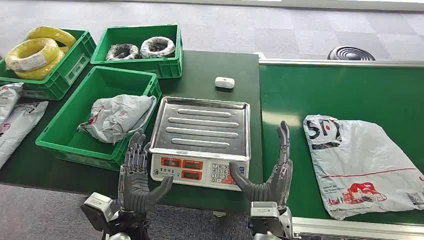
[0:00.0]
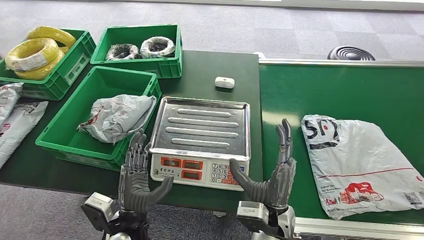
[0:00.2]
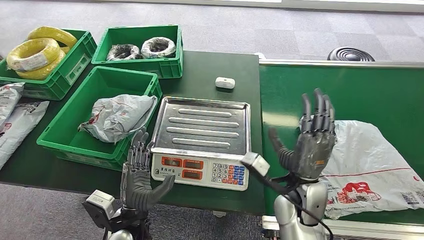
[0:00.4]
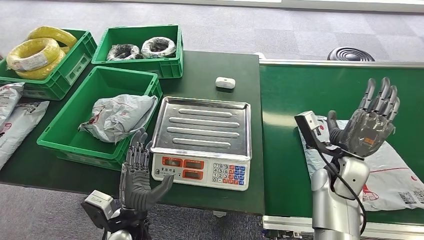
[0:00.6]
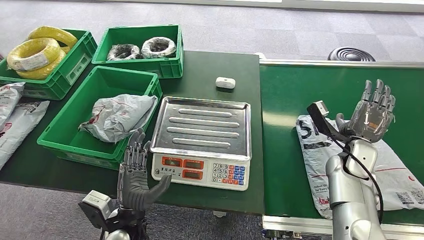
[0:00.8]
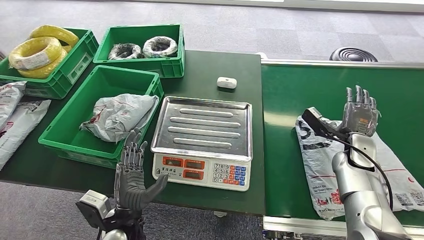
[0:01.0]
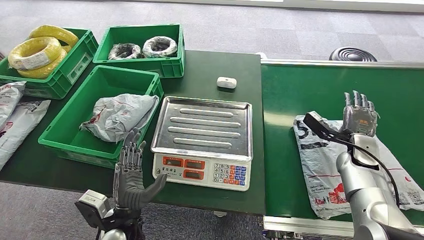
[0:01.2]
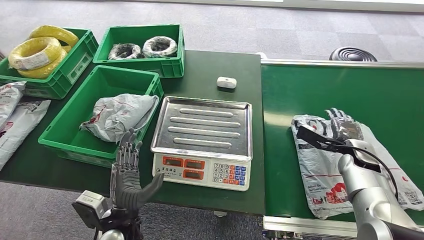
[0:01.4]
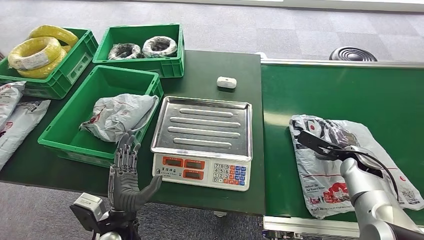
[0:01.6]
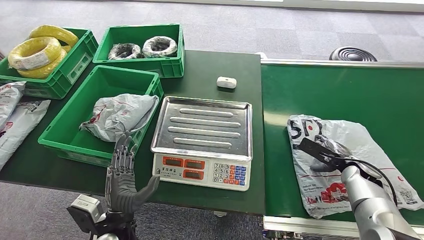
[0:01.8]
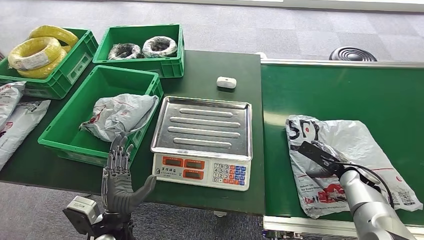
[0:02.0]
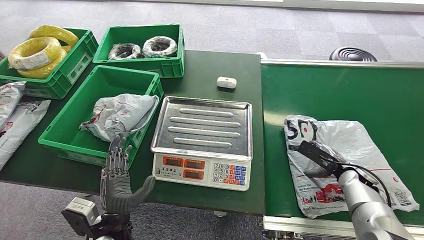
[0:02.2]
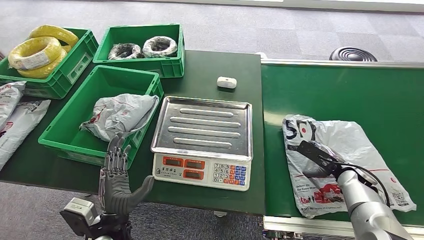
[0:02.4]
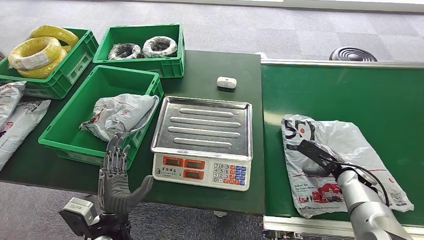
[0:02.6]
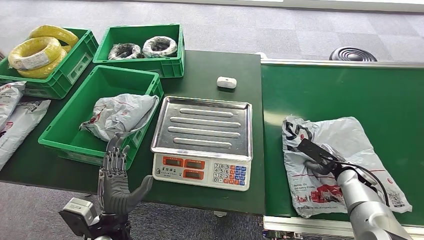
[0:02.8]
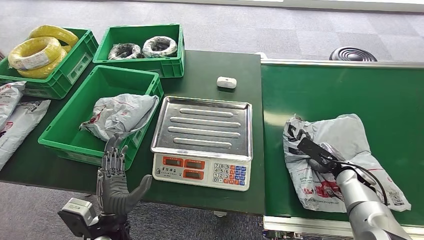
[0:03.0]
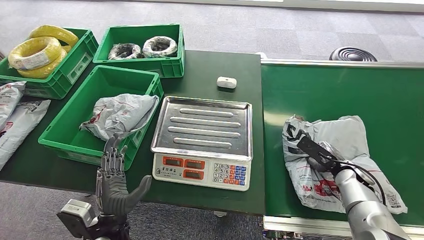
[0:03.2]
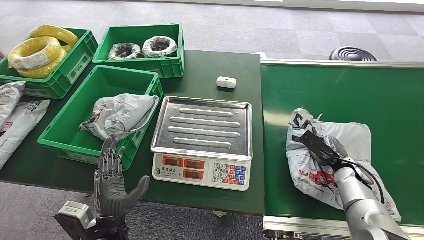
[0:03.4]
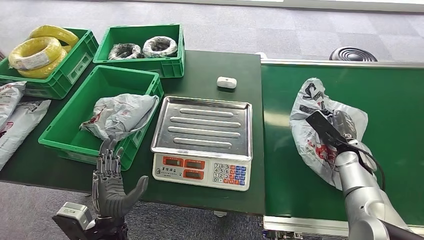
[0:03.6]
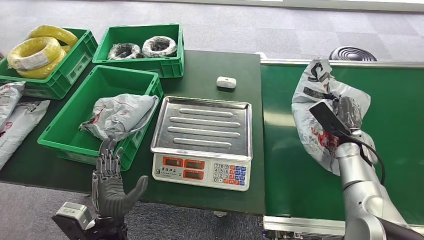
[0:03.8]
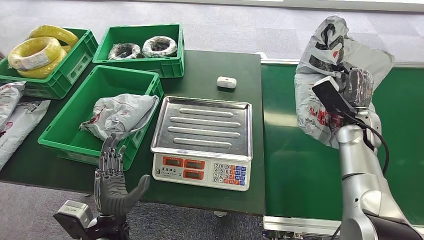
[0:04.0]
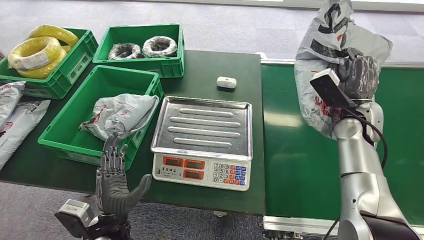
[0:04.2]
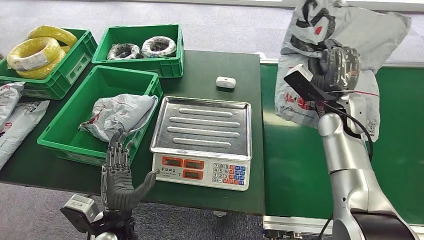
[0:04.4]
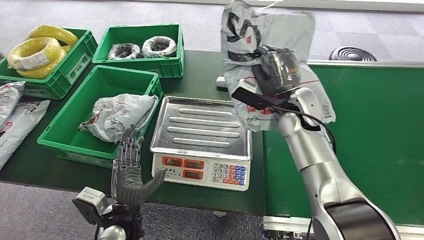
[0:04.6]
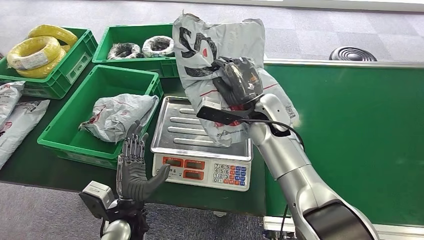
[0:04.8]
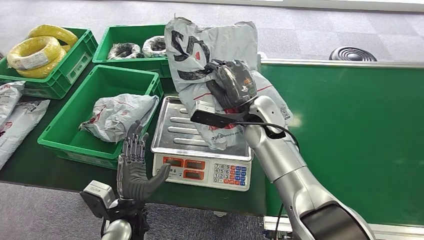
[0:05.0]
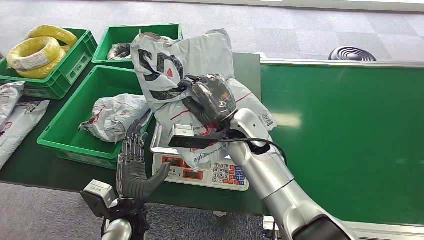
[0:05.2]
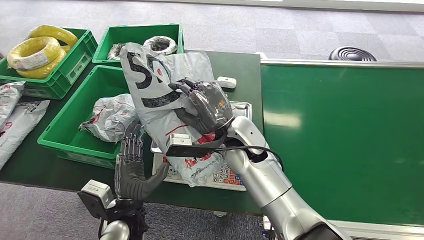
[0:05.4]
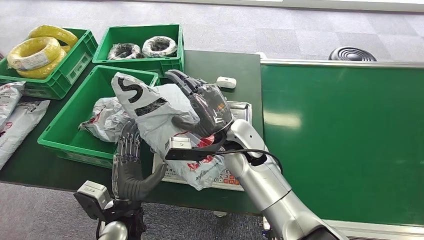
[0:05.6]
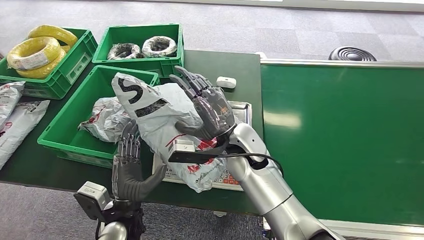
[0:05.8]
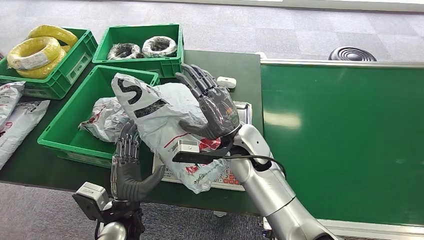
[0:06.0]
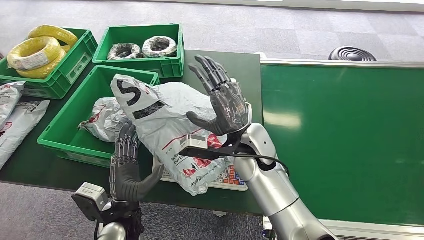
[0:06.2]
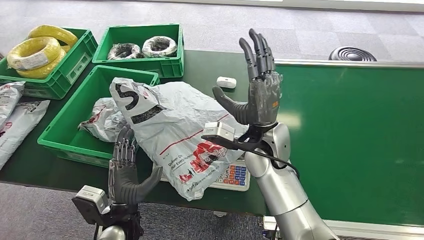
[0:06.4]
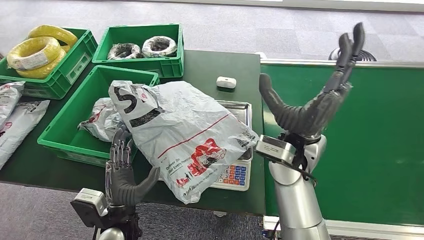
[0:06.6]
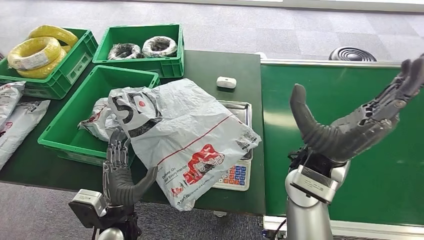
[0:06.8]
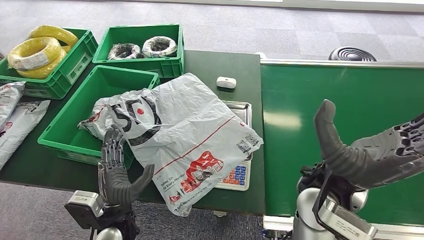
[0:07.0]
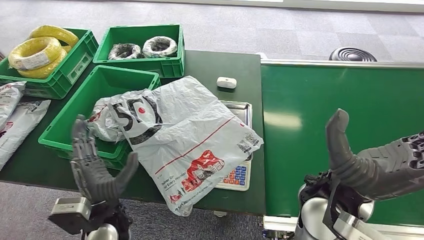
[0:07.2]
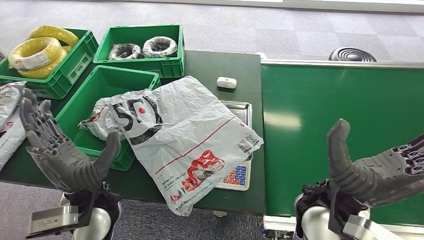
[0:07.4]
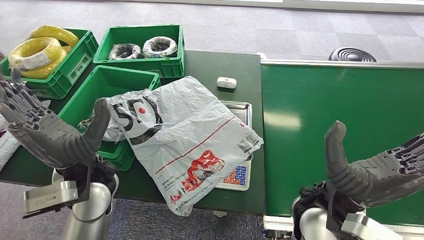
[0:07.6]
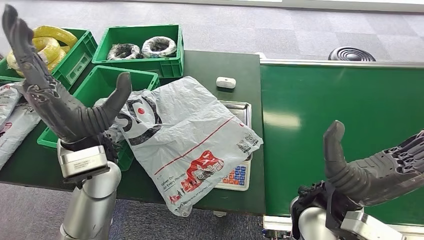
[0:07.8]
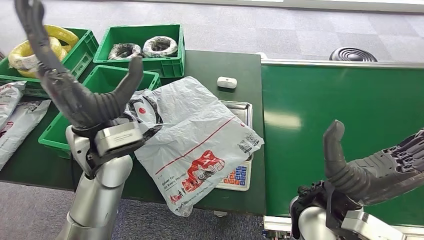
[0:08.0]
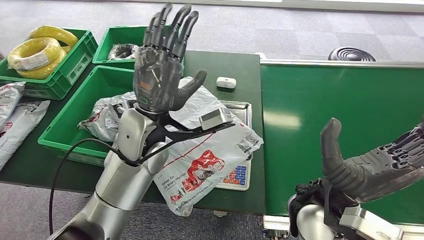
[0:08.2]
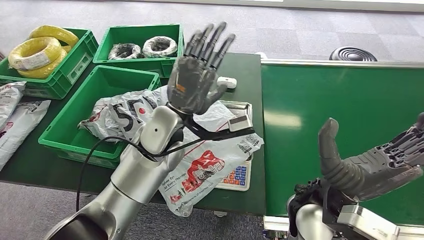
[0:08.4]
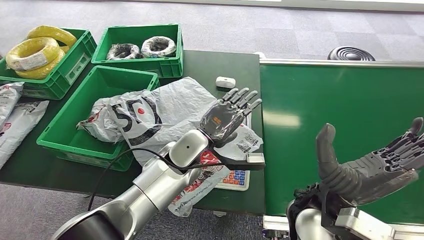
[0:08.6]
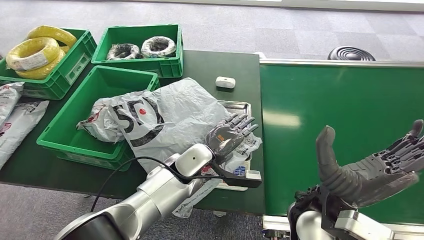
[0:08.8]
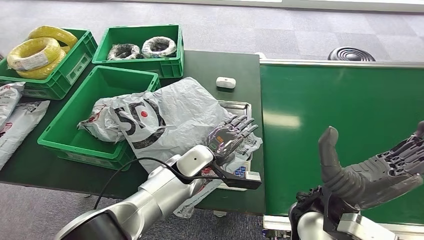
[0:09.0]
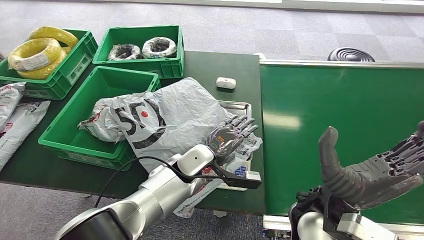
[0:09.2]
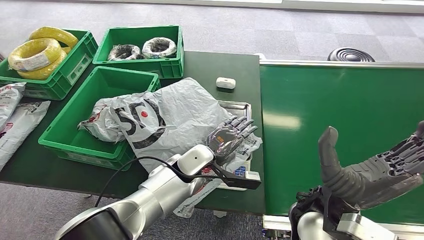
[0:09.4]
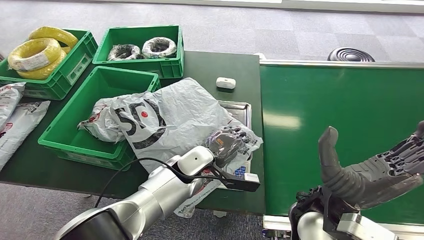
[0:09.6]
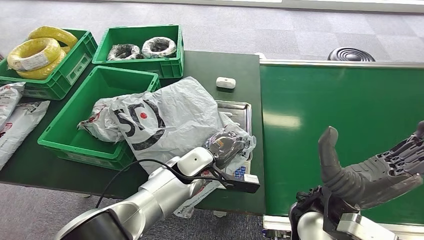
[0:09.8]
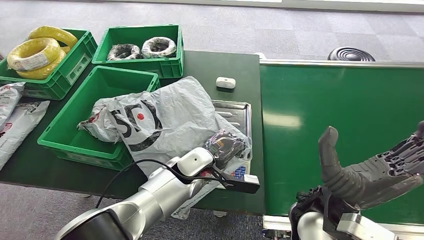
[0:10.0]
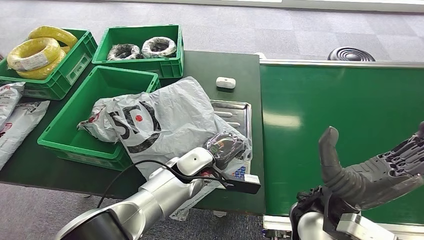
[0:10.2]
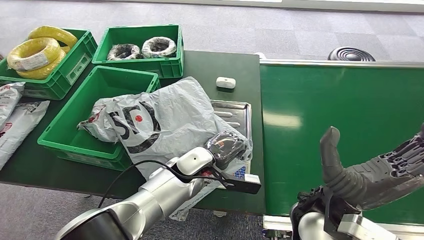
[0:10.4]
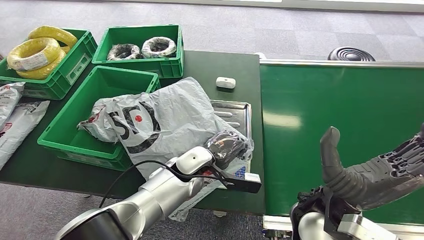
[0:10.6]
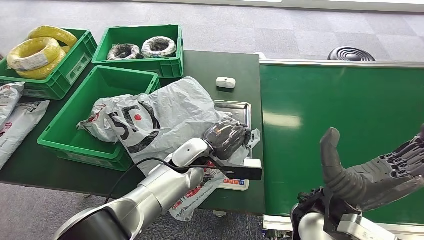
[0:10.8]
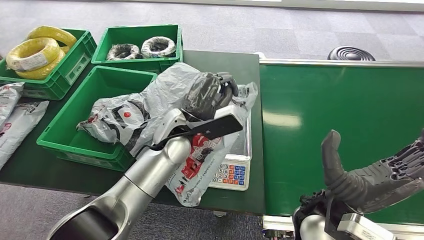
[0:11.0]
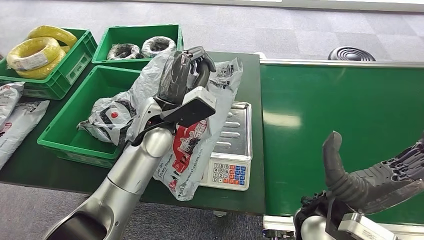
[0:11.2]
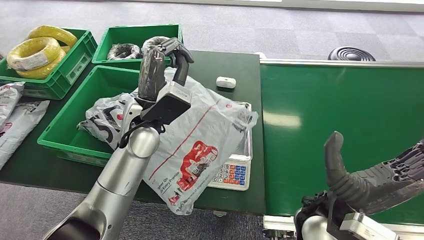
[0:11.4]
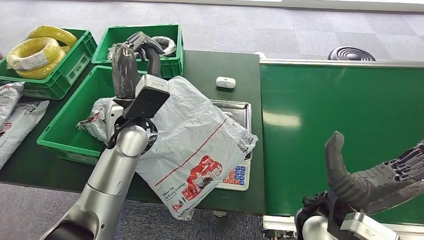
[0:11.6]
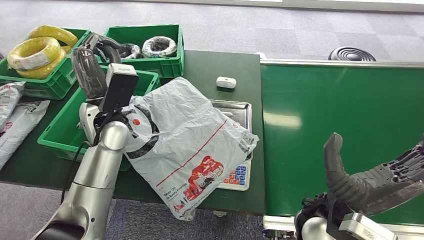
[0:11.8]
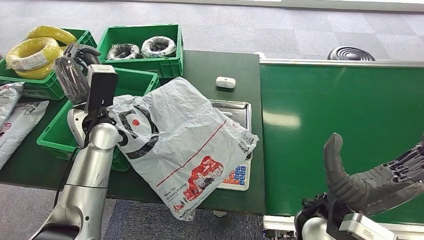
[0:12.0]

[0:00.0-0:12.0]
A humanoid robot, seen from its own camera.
Step, 0:00.0 to 0:04.0: Pick up the package from the conveyor belt.
Step, 0:04.2 to 0:07.4: Place the package onto the inbound machine.
0:09.0 to 0:10.4: The hands make only small movements.

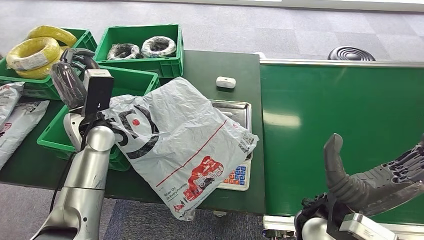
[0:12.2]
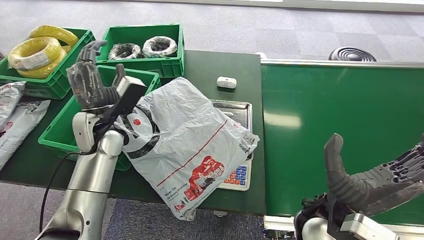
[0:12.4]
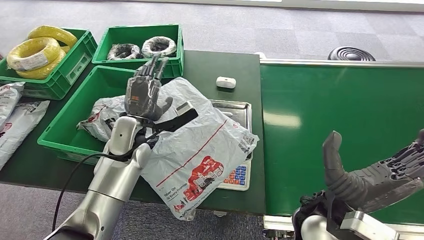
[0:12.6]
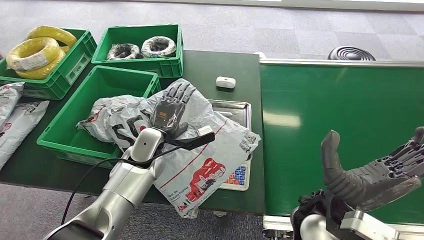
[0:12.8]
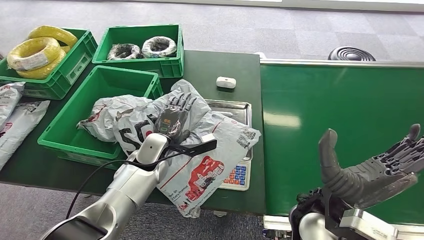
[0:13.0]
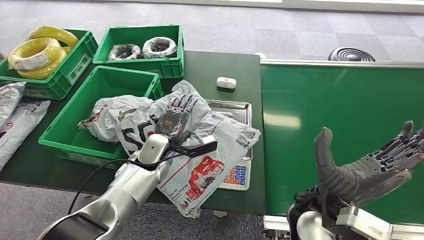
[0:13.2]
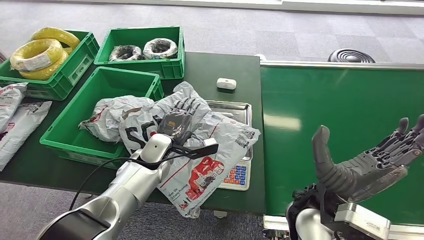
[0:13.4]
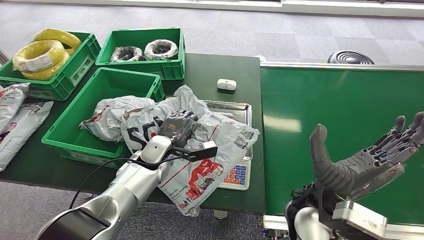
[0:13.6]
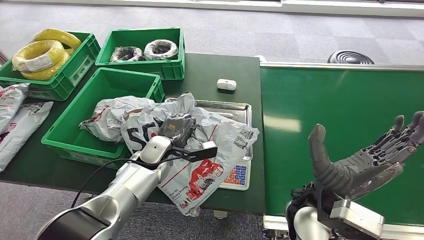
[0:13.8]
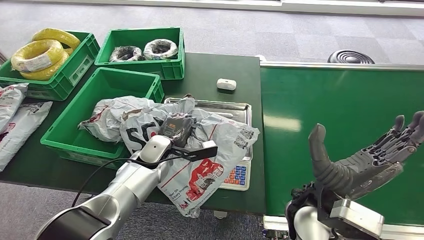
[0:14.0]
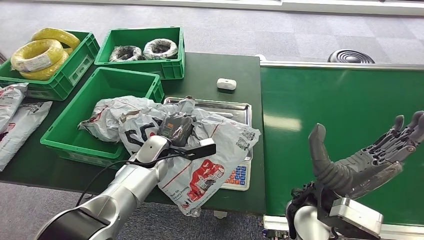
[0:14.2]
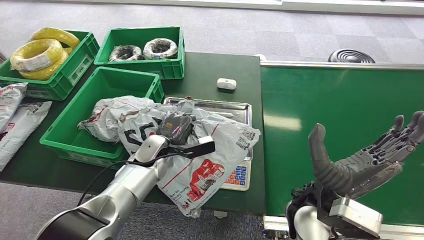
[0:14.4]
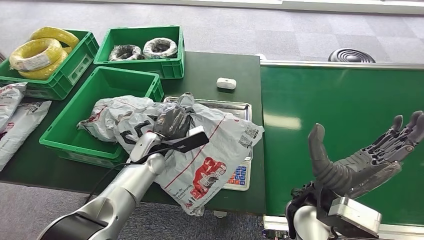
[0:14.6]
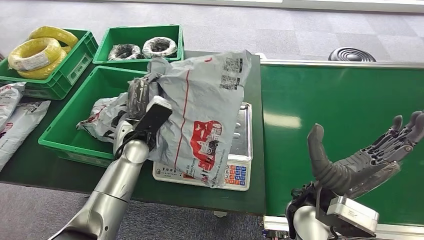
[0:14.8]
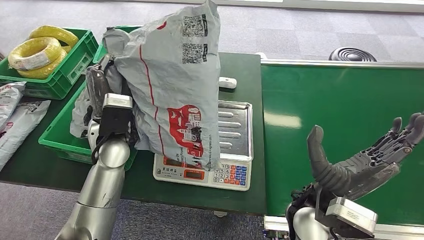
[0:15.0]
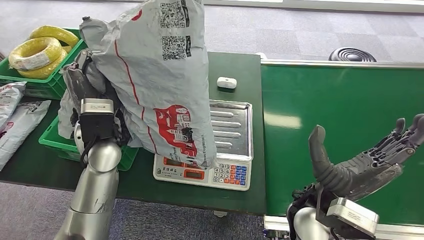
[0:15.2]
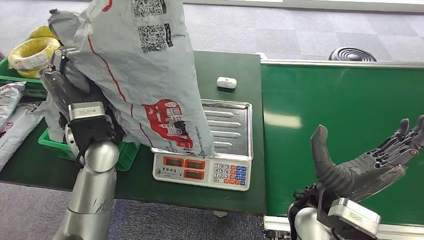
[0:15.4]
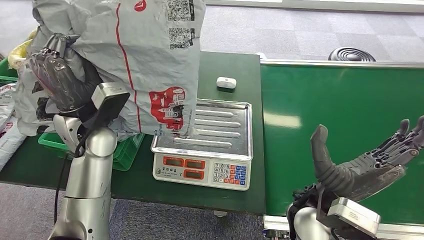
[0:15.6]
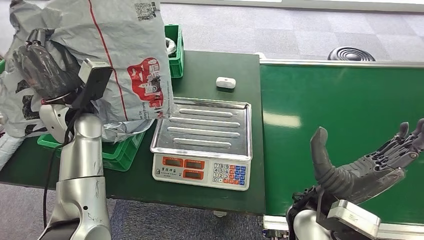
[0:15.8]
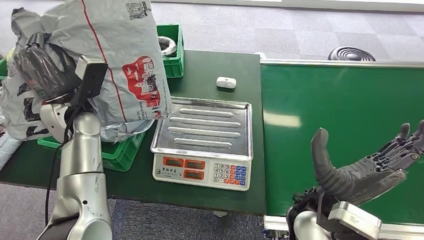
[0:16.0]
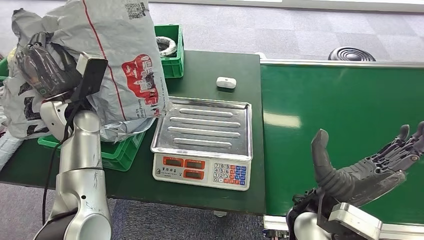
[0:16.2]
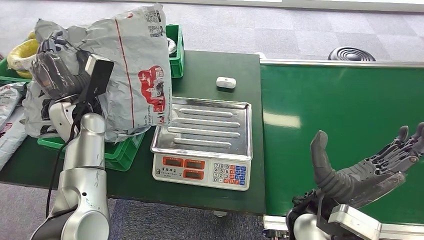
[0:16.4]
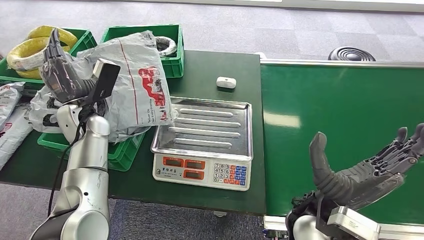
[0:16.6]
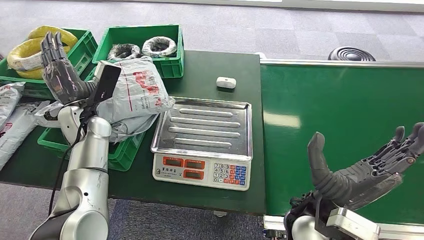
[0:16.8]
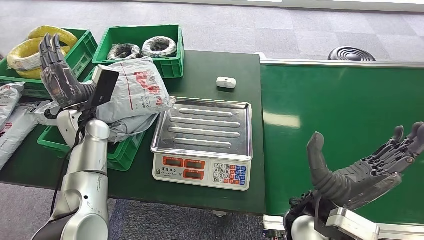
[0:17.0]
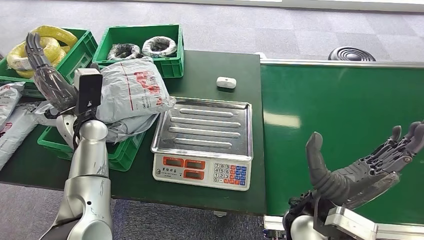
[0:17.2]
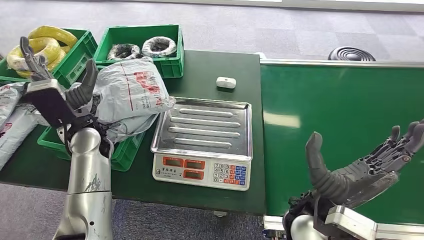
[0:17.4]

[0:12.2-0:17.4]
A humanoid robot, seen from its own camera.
Step, 0:12.2 to 0:15.0: Pick up the package from the inbound machine.
Step, 0:15.4 to 0:17.2: Place the package into the parcel locker.
